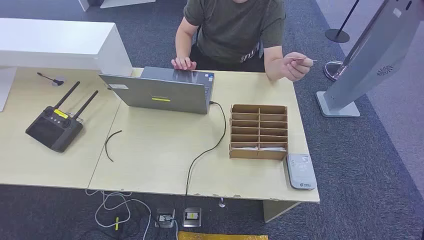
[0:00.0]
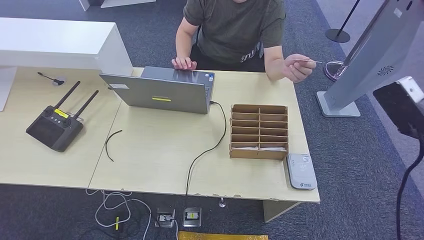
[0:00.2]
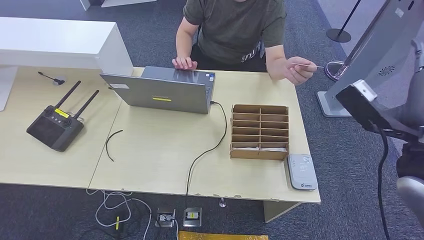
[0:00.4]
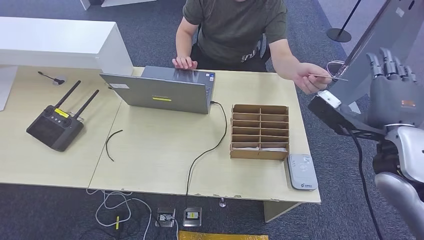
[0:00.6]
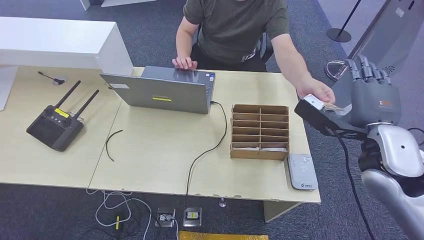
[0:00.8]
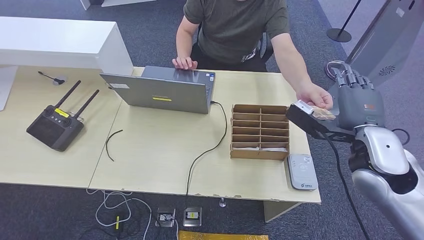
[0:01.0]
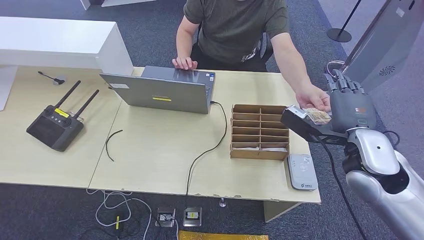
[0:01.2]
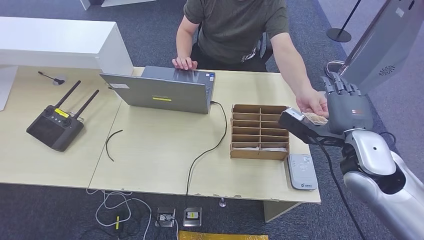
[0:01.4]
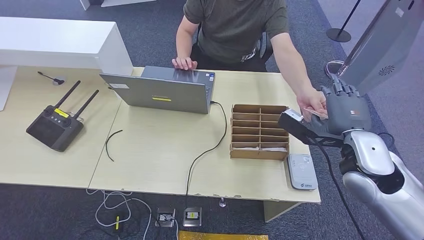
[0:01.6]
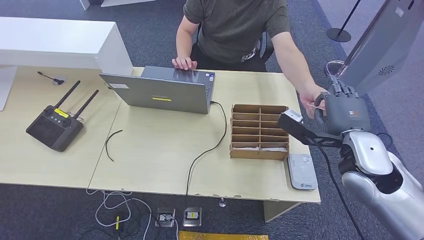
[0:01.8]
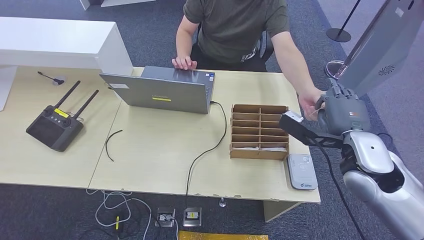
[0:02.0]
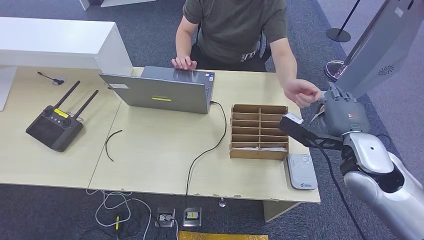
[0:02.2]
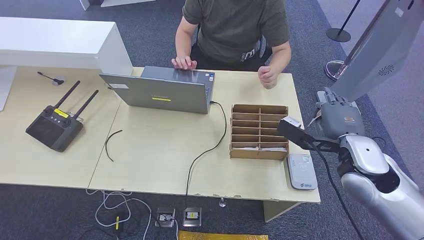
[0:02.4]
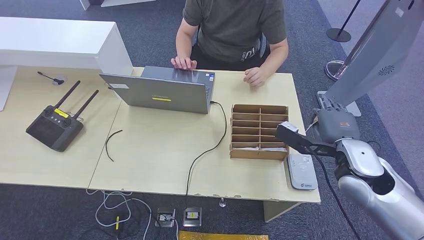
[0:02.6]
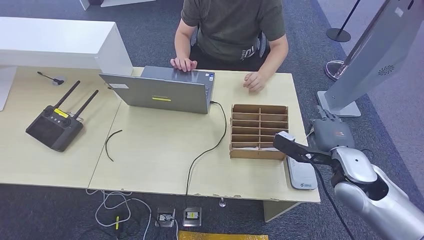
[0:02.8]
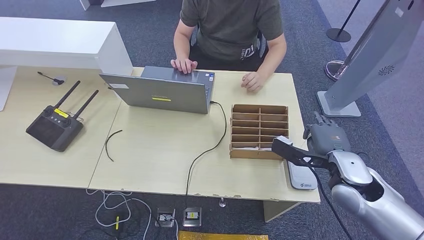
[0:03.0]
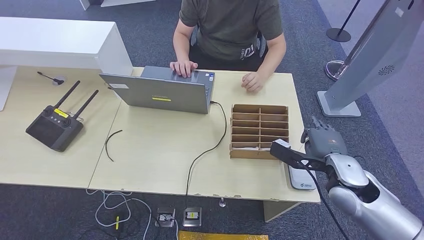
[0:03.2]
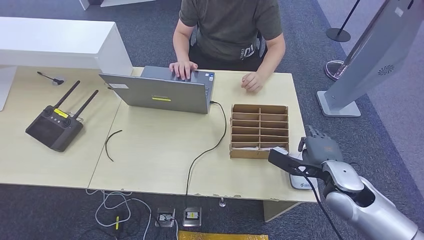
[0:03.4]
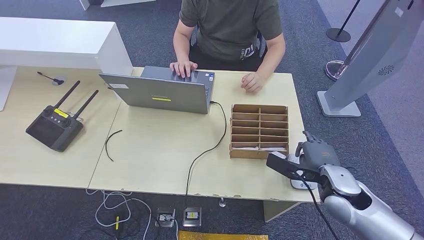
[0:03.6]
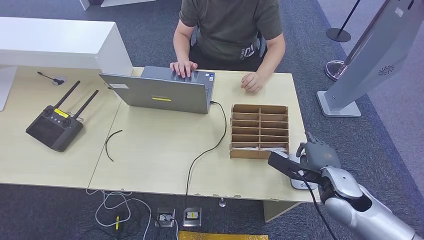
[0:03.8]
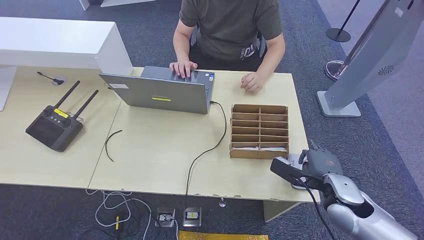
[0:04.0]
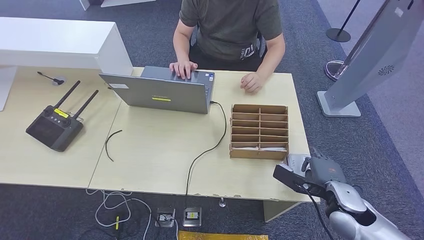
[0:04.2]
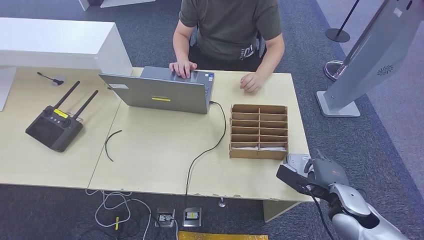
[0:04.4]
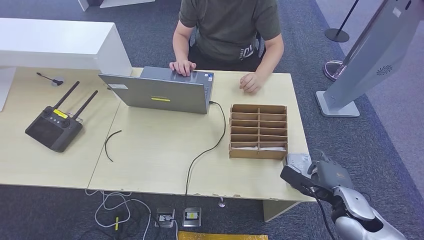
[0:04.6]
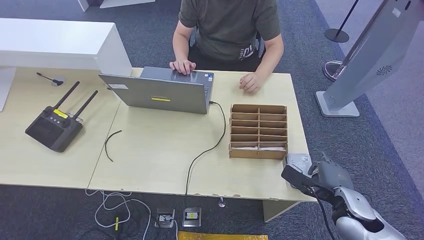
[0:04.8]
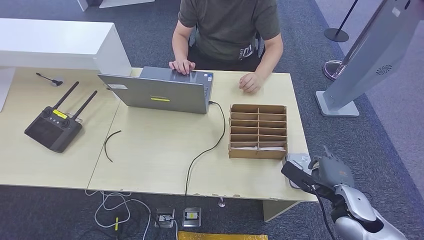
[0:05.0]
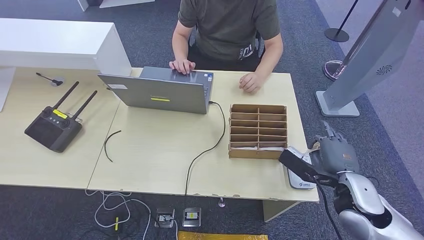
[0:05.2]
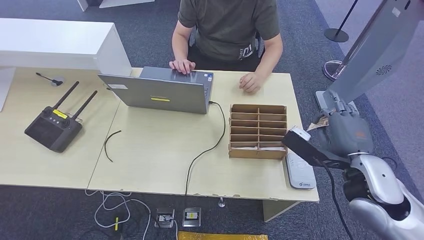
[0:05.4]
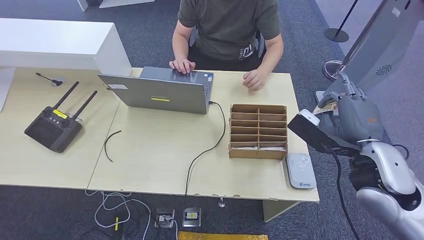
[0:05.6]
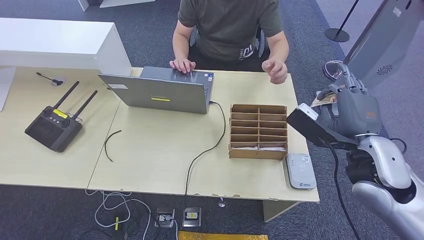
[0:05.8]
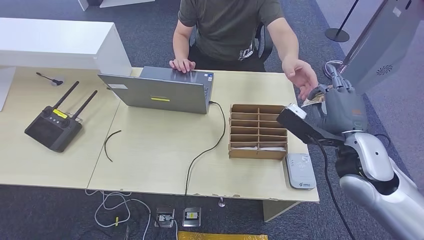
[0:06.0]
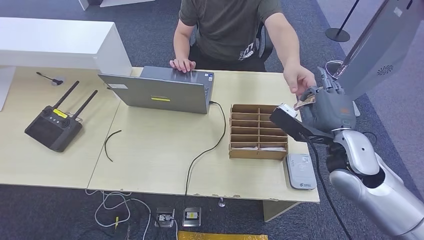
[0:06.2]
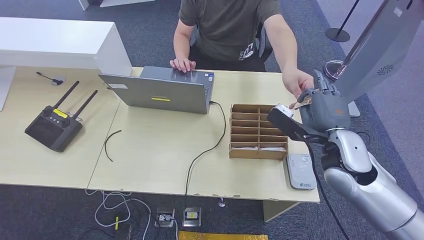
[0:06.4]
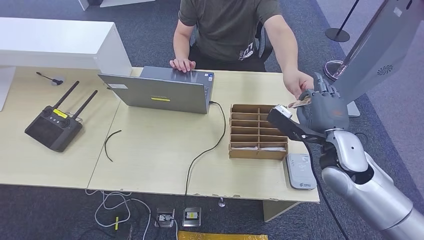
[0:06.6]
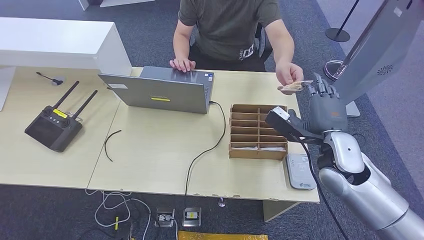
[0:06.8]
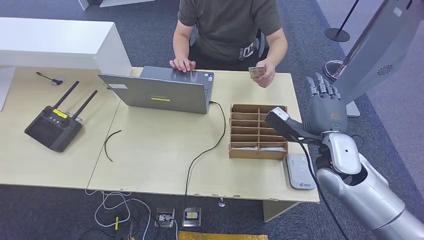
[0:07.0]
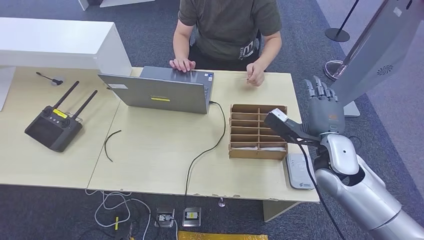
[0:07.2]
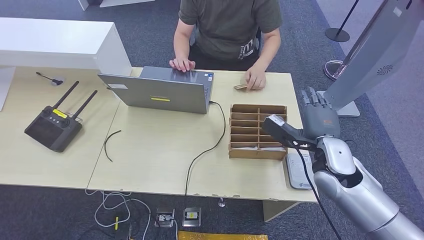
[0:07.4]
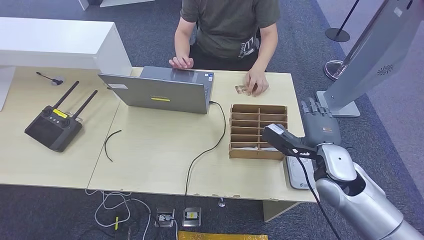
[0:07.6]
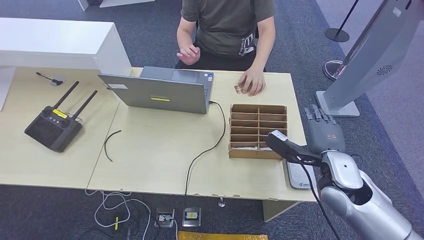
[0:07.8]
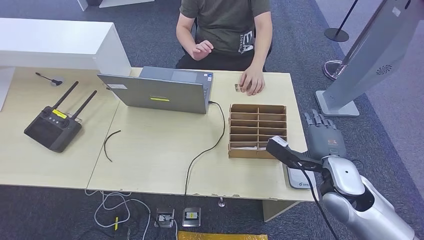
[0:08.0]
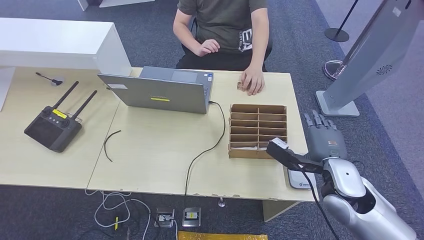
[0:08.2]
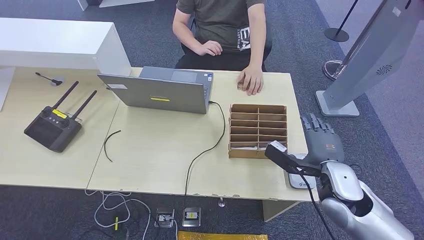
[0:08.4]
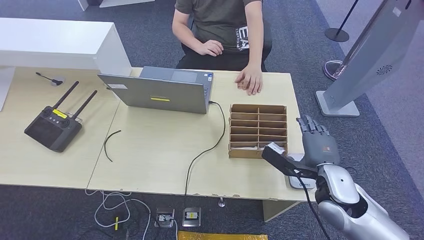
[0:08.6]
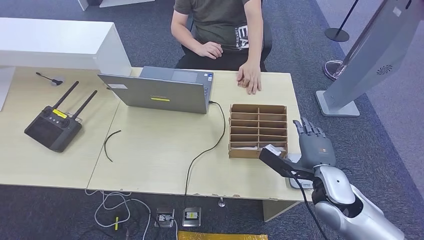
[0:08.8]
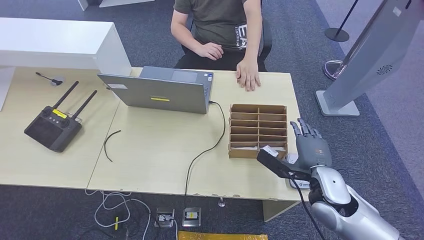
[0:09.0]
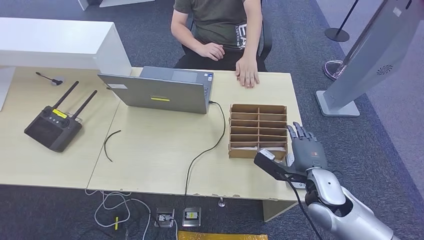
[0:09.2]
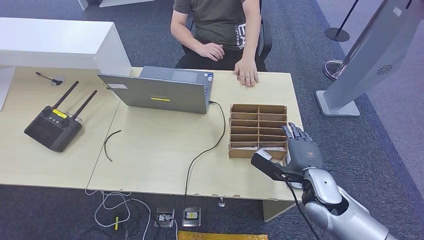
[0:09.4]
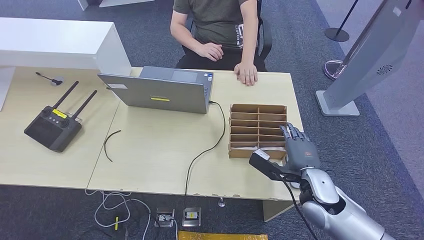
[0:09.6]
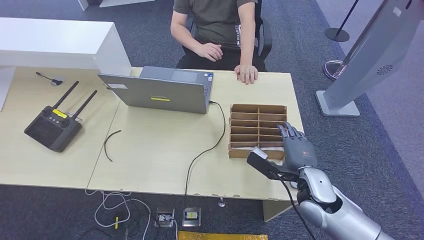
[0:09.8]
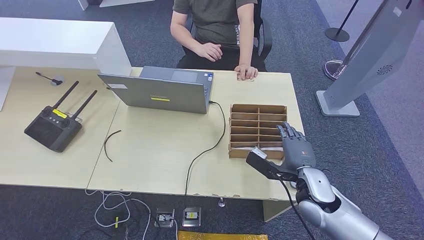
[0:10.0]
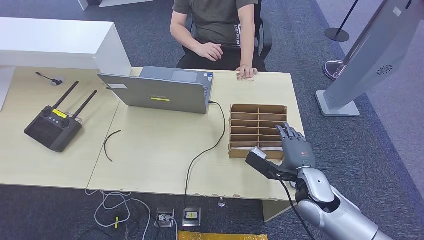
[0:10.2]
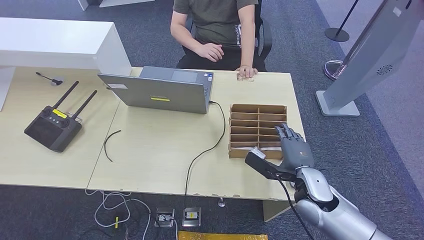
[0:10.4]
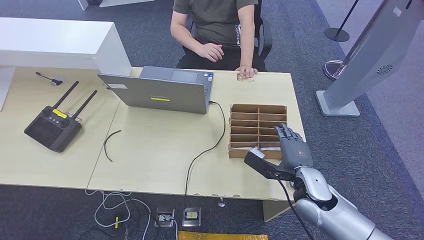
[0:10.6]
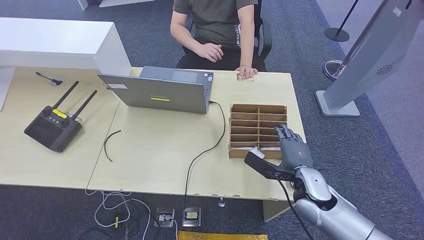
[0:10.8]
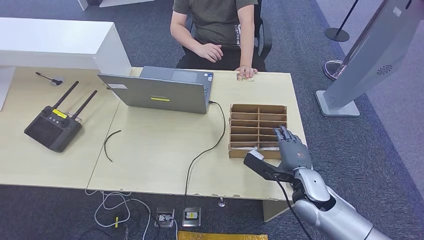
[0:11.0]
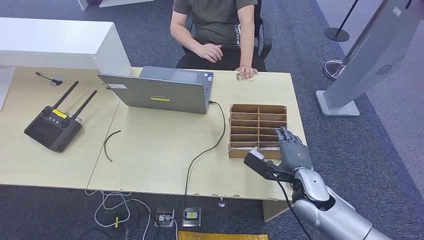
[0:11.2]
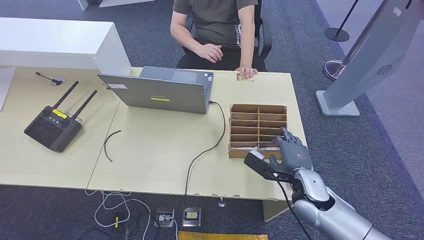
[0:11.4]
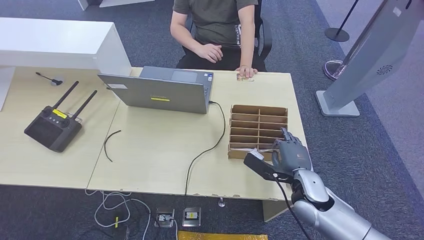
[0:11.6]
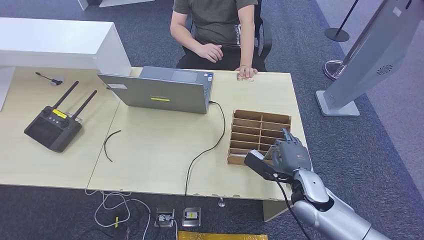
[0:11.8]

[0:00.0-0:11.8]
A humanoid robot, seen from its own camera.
Step, 0:00.0 to 0:02.2: Take the ID card from the person's hand.
Step, 0:02.6 to 0:04.8: Place the ID card on the card reader.
Step, 0:05.0 to 0:07.0: Hand the ID card to the person.
0:01.4 to 0:03.0: The right hand goes roughly 5 cm downward.
0:03.0 to 0:04.4: The right hand travels downward by roughly 10 cm.
0:04.4 to 0:06.0: The right hand travels upward by some 15 cm.
0:06.0 to 0:07.4: The right hand shifts approximately 5 cm downward.
0:07.4 to 0:08.8: The right hand goes about 5 cm backward.
0:08.8 to 0:10.4: The hands make only small movements.
0:10.4 to 0:11.8: Neither hand changes place.

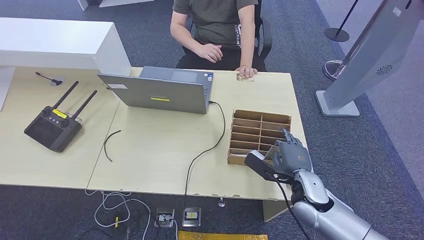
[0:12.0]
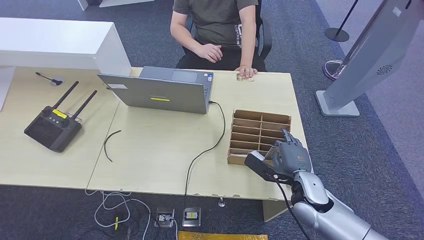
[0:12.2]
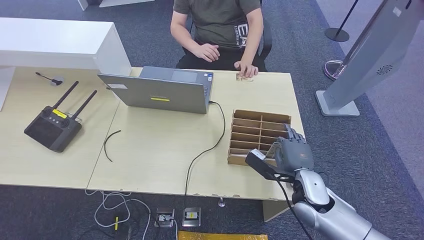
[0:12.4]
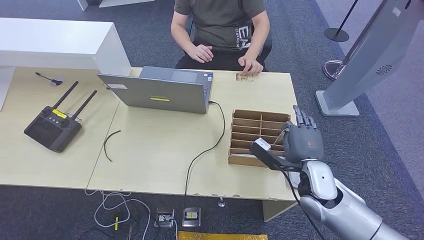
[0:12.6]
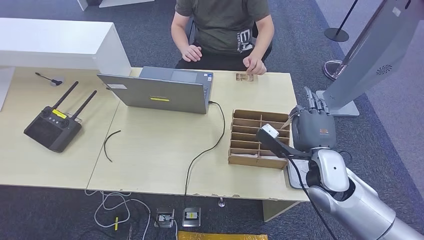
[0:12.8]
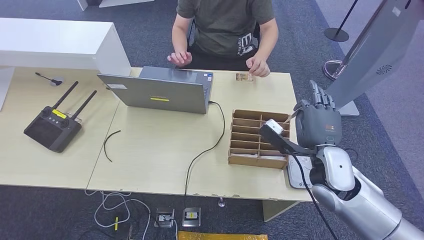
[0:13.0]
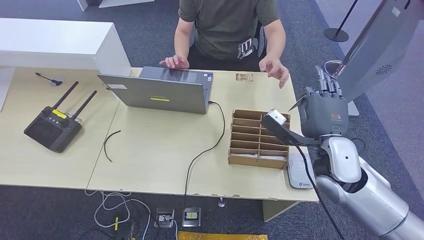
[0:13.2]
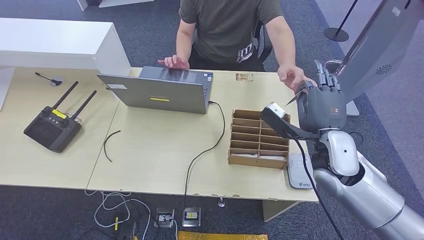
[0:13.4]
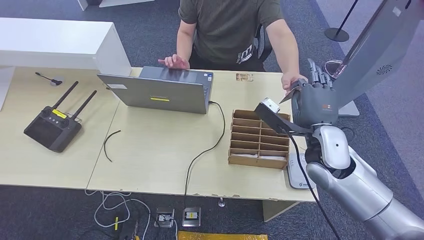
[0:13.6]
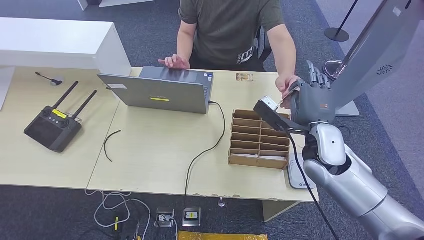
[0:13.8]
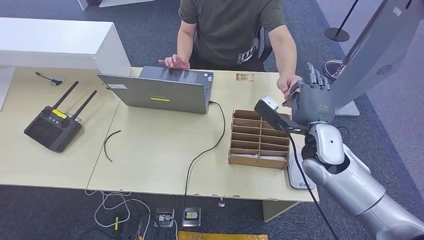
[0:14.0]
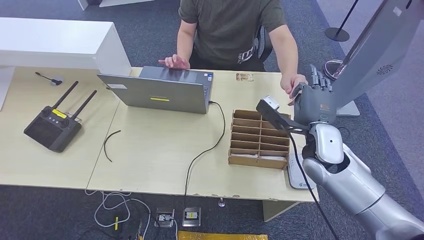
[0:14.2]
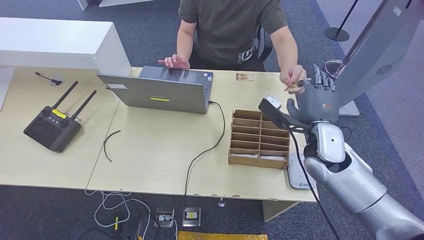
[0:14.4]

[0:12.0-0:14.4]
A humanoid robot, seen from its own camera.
Step, 0:13.0 to 0:14.4: Hand the room key to the person.
0:12.0 to 0:13.2: The right hand is displaced upward by approximately 10 cm.
0:13.2 to 0:14.4: There are only small adjustments of the hands.
